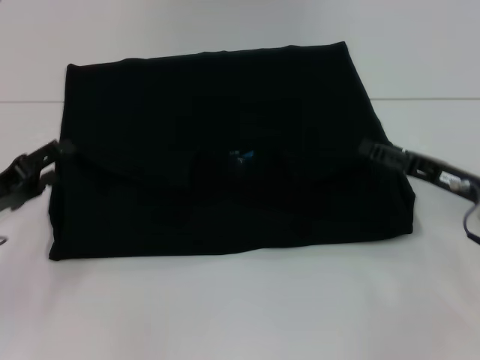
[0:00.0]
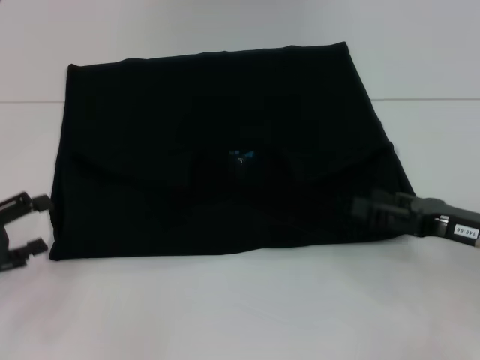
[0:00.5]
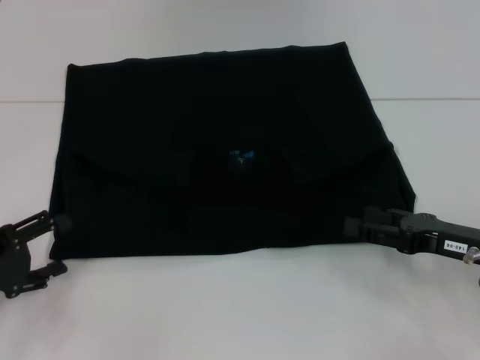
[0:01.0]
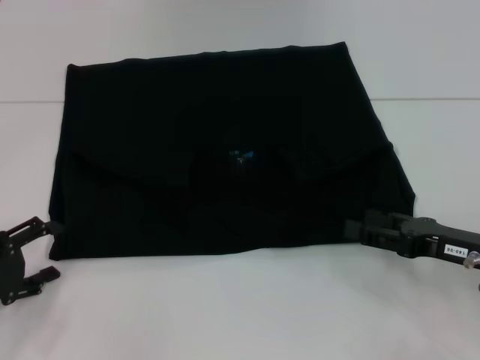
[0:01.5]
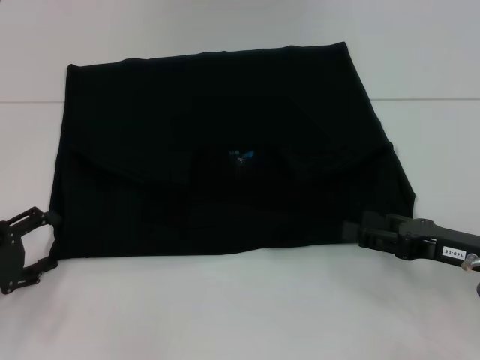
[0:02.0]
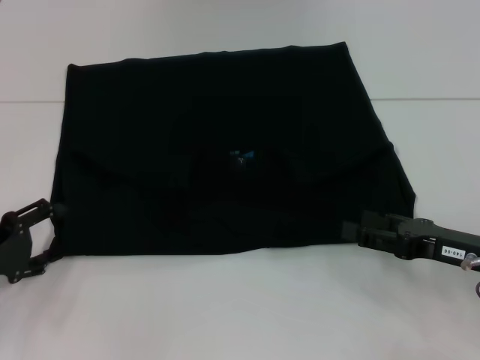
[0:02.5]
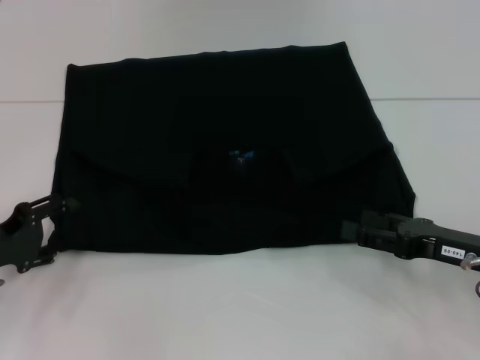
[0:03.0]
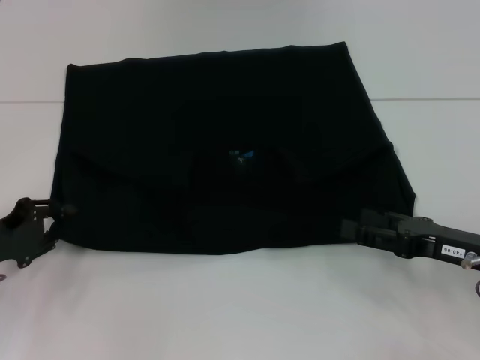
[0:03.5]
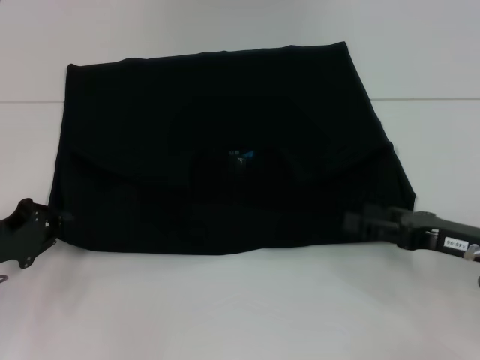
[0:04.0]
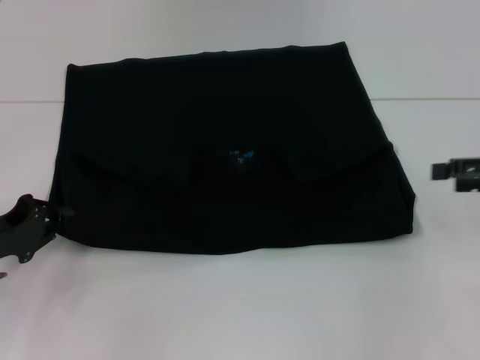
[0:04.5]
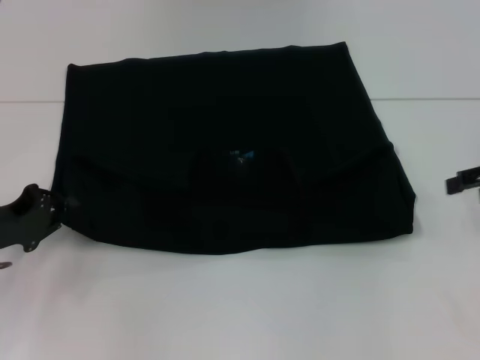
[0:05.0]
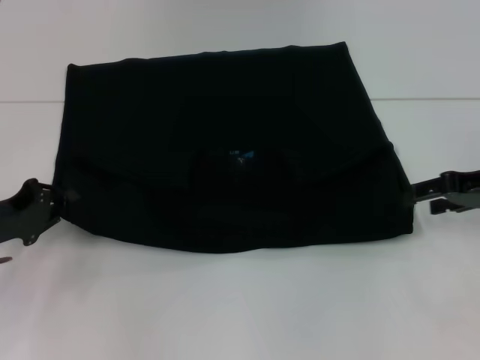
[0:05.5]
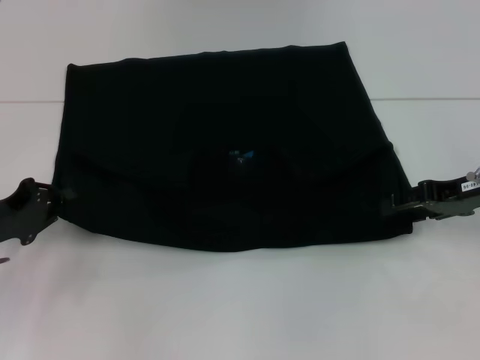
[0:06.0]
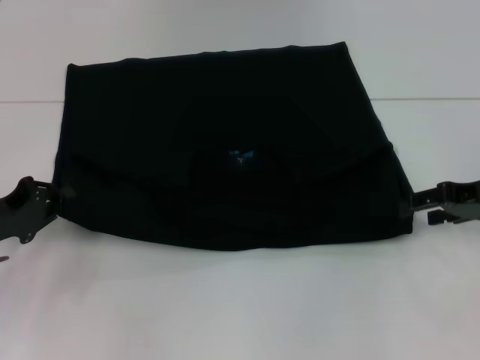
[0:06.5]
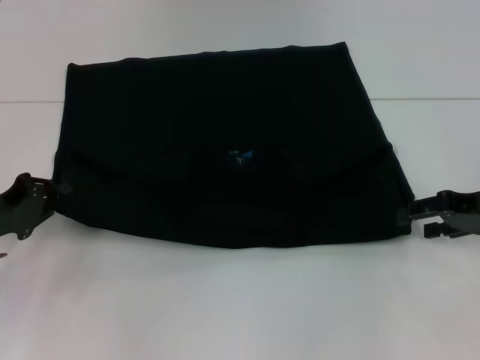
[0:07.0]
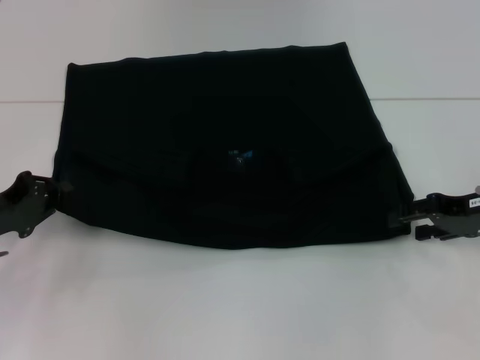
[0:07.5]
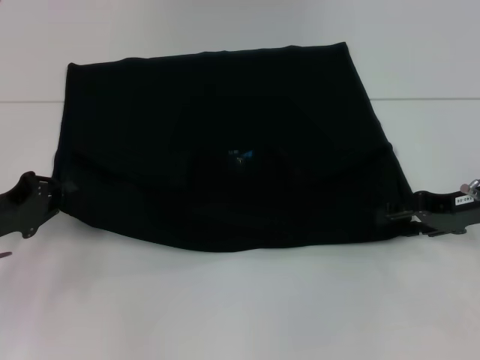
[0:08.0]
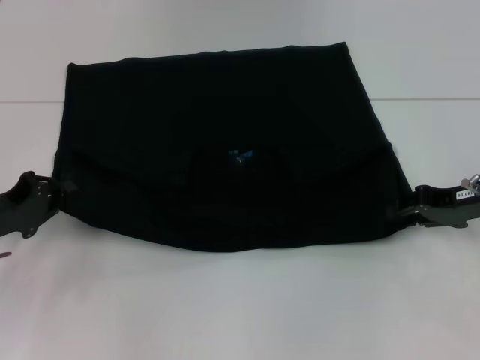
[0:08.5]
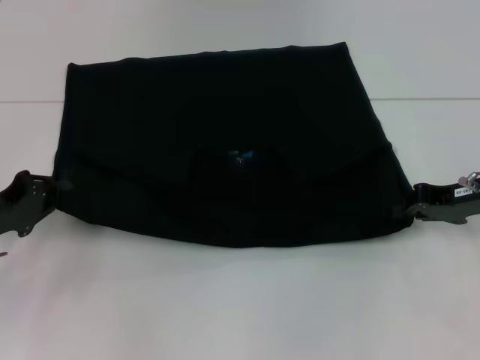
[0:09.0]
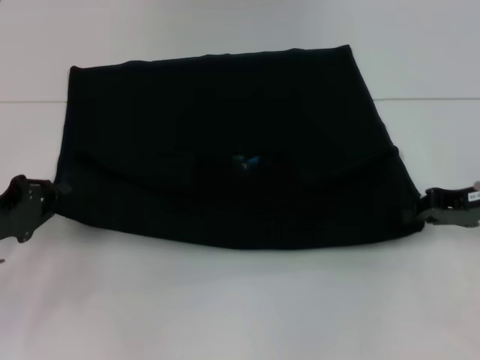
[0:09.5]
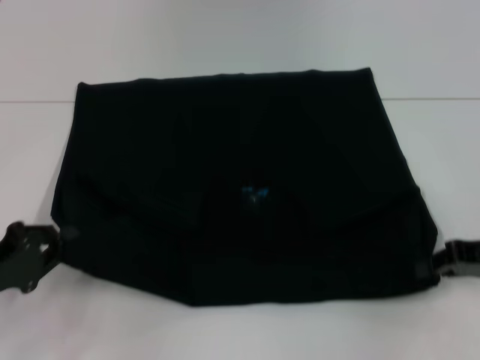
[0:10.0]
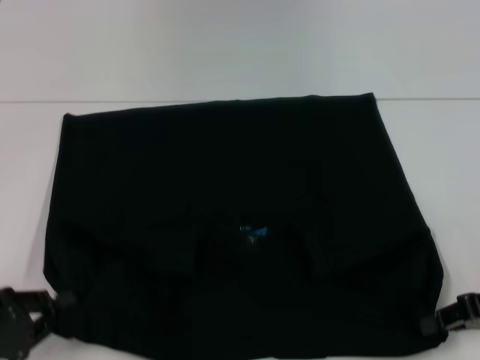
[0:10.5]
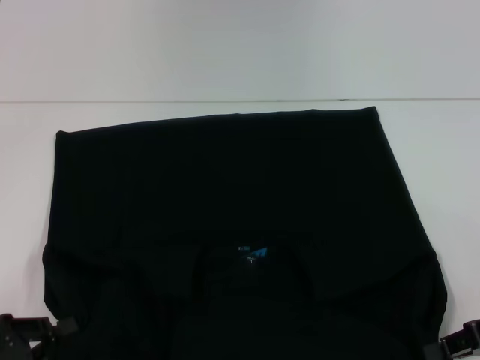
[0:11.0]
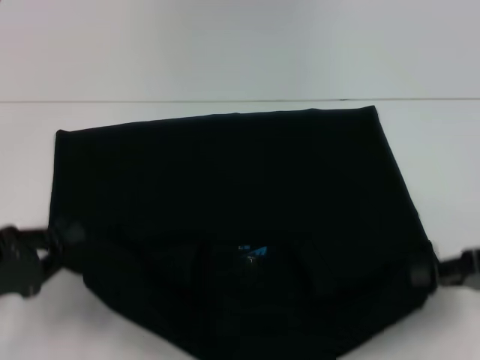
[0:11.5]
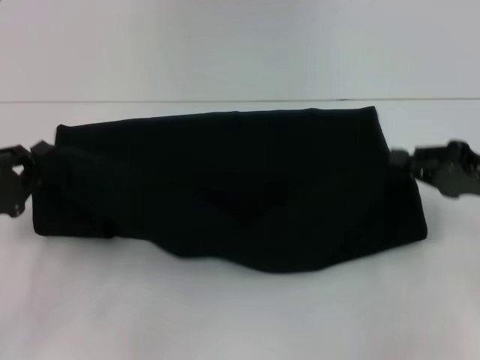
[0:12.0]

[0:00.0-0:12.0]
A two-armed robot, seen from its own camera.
Step, 0:00.0 to 0:10.5: Pull the clothes with your left hand.
Step, 0:00.0 to 0:10.5: Pull the clothes with your right hand.
0:00.0 to 0:02.0: Both grippers travel together backward, some 5 cm.
0:02.0 to 0:04.0: The left gripper closes.
0:04.0 to 0:06.0: The right gripper travels forward and upward by some 10 cm.
0:06.0 to 0:08.0: The grippers move only a little.
0:08.0 to 0:10.0: The right gripper shifts by about 5 cm, and closes its fingers, while the left gripper travels backward by roughly 5 cm.
0:10.0 to 0:12.0: The left gripper moves some 10 cm backward and comes back.

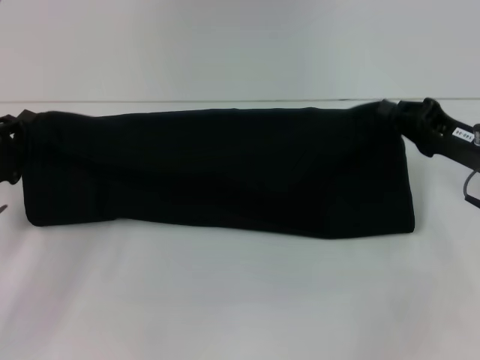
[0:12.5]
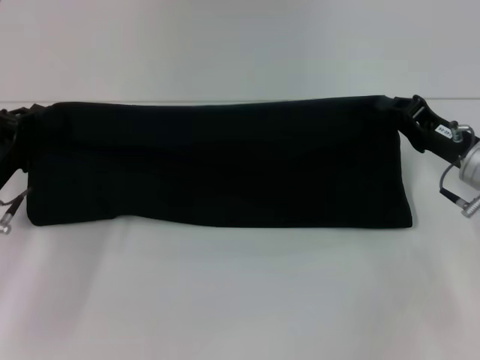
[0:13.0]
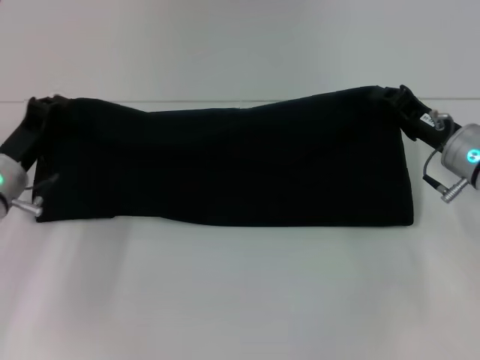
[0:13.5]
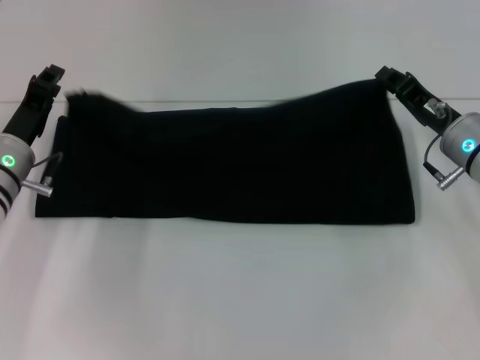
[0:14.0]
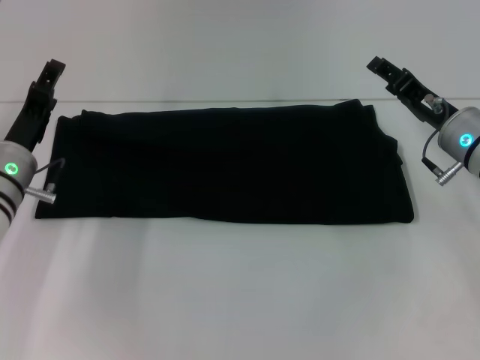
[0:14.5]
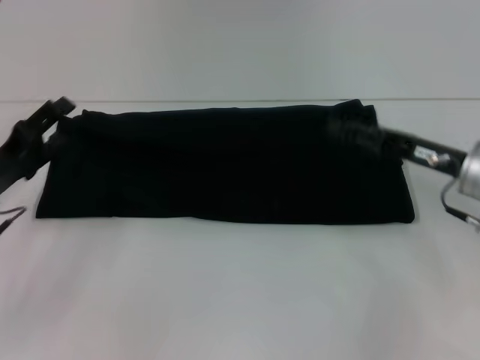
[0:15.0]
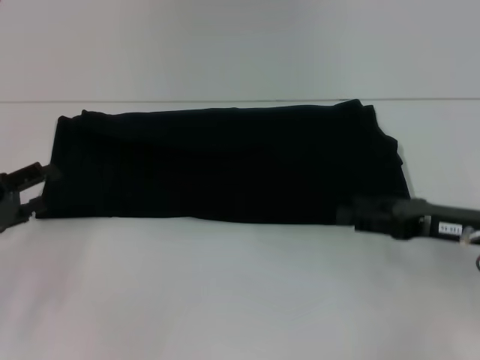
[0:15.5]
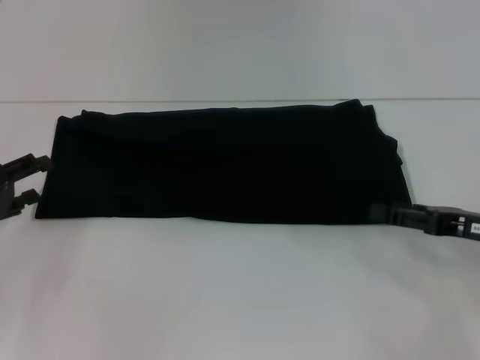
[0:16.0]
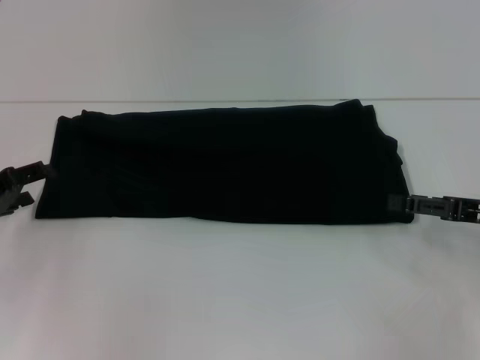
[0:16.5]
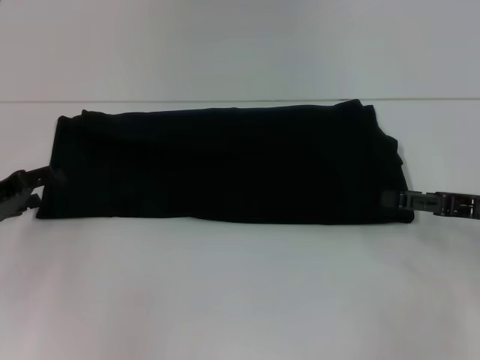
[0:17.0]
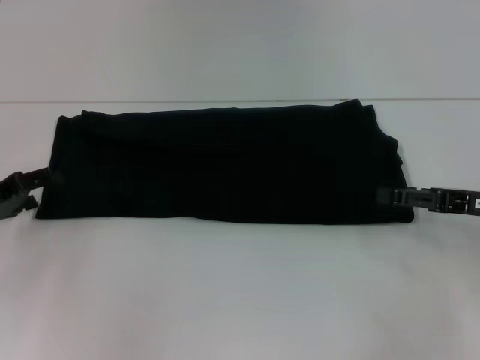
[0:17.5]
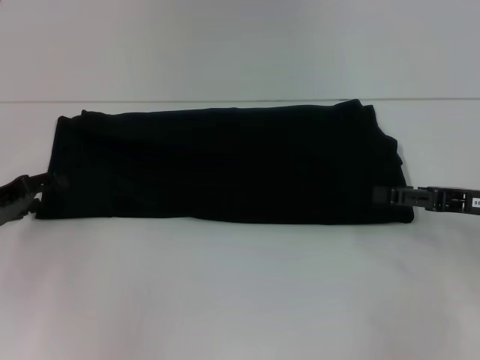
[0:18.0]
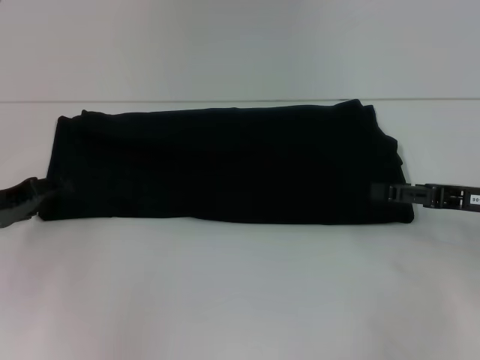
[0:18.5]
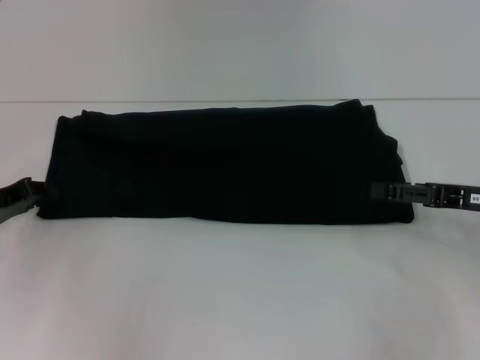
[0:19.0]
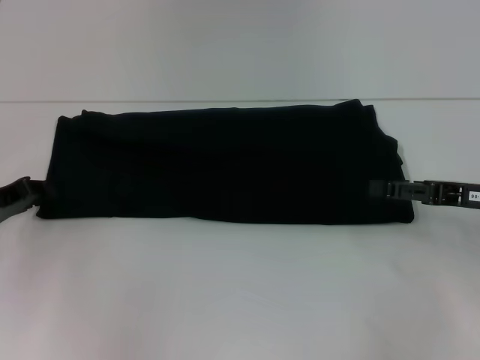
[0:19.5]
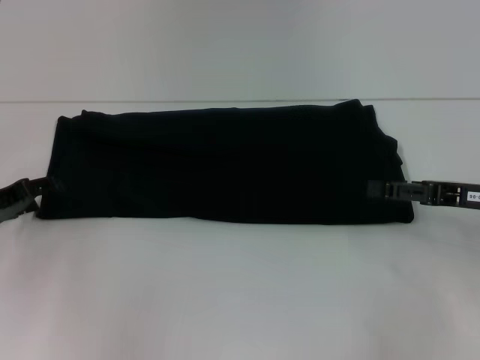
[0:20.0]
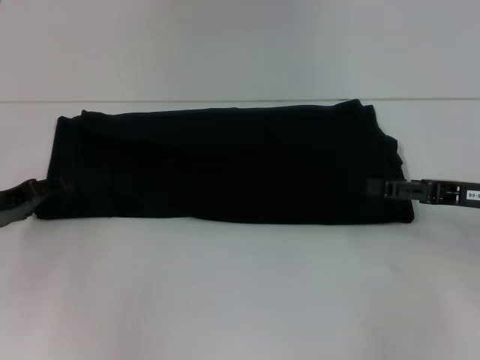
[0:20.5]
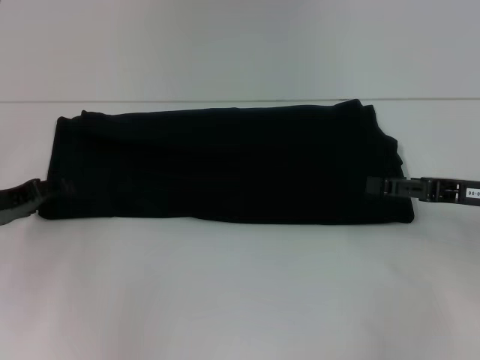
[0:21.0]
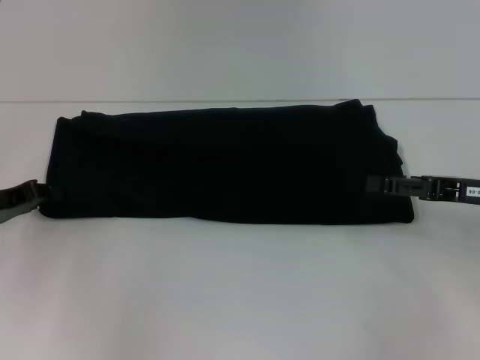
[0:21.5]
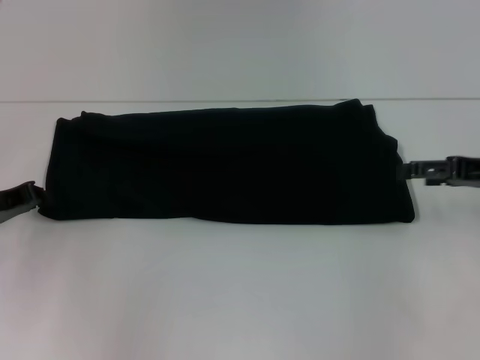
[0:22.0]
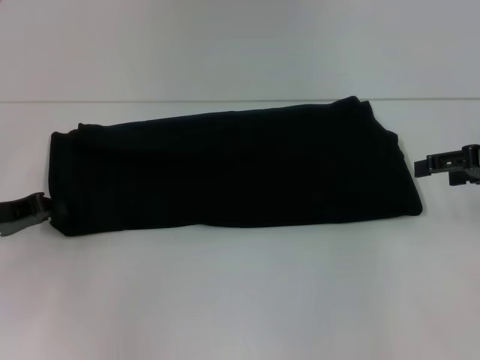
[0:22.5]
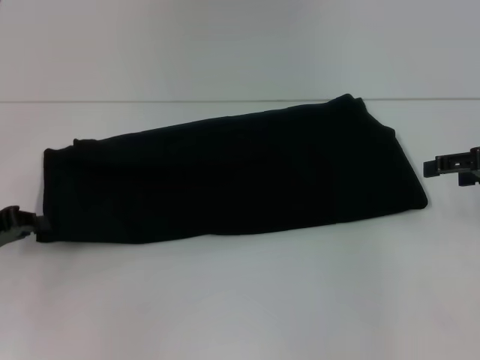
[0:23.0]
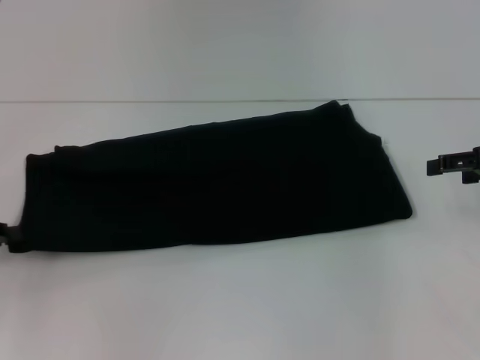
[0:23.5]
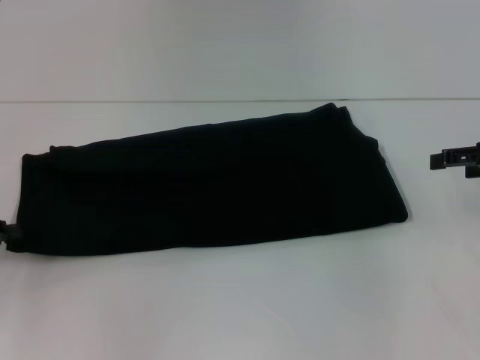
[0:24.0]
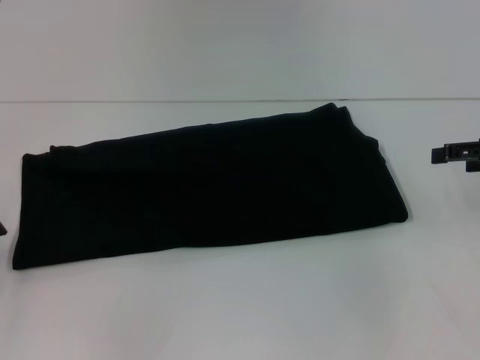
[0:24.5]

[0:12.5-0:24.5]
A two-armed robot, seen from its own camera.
0:12.5 to 0:14.5: The left gripper travels forward and to the right by roughly 10 cm, and opens, while the right gripper ends up approximately 5 cm from where it was, and opens.
0:14.5 to 0:16.5: The left gripper is displaced to the left by some 10 cm; the right gripper travels to the right and backward by roughly 10 cm, and opens its fingers.
0:16.5 to 0:18.5: The grippers make only small movements.
0:20.5 to 0:22.5: The right gripper goes some 5 cm upward. Meanwhile the left gripper closes its fingers.
0:22.5 to 0:24.5: The left gripper moves to the left and backward, approximately 10 cm.

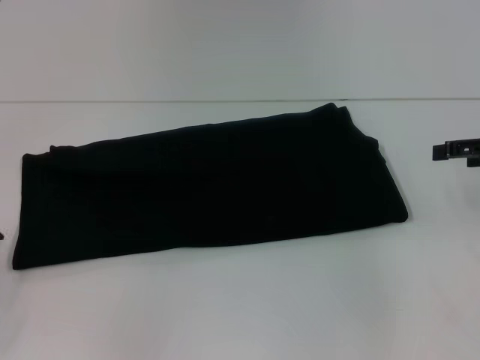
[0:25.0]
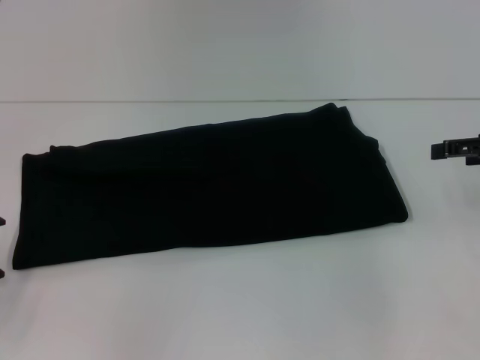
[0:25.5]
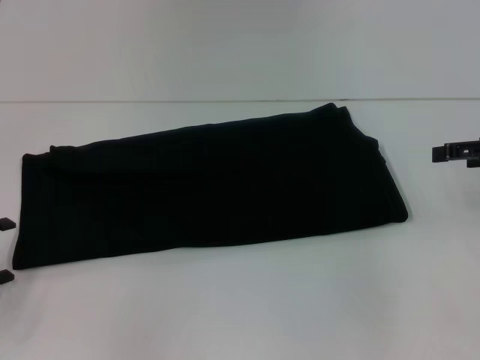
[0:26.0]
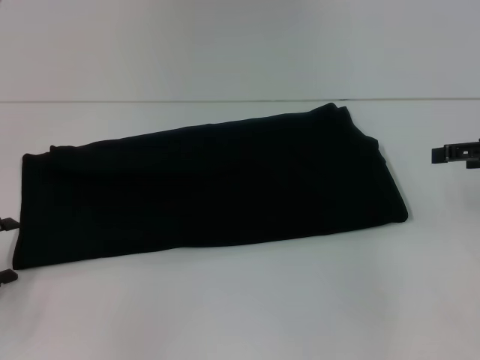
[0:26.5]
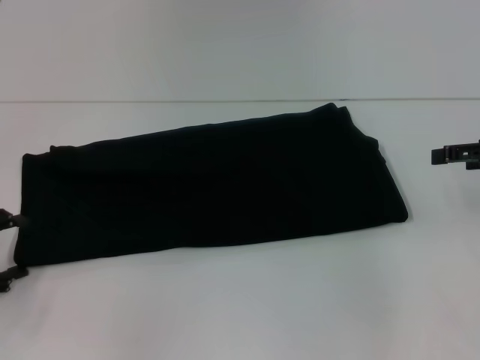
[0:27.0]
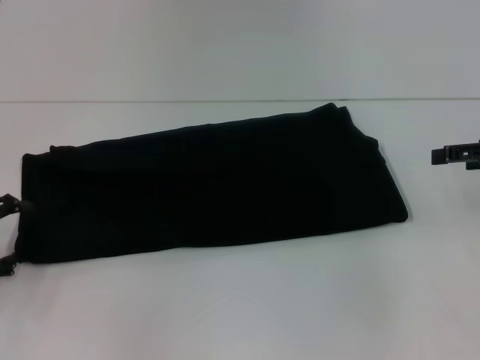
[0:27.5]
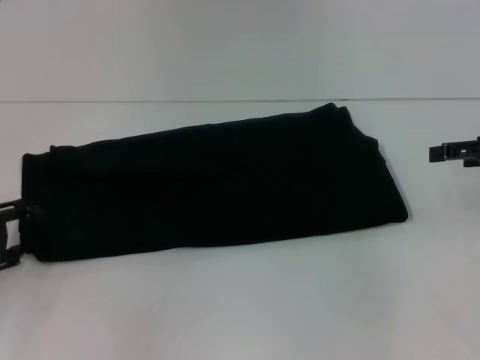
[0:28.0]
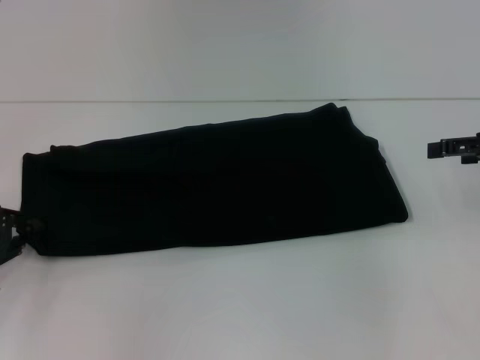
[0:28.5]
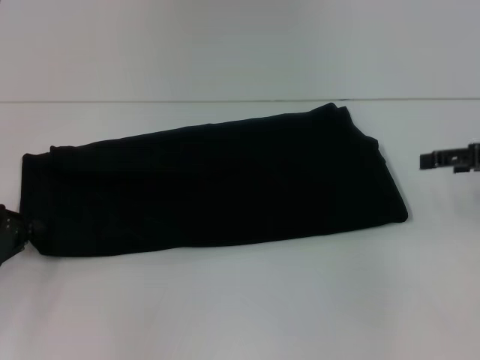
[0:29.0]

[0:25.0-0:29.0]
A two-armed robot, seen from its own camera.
0:25.0 to 0:27.0: The grippers stay close to where they were, moving slightly.
0:27.0 to 0:29.0: The left gripper closes up.
